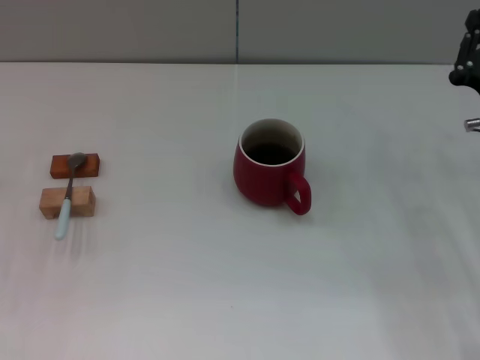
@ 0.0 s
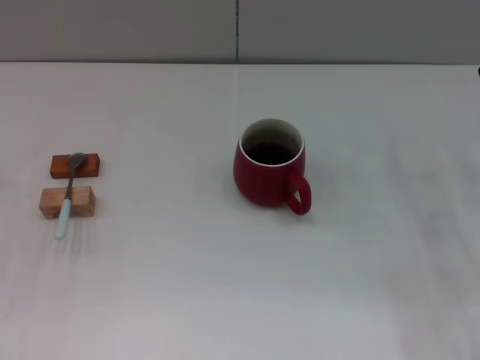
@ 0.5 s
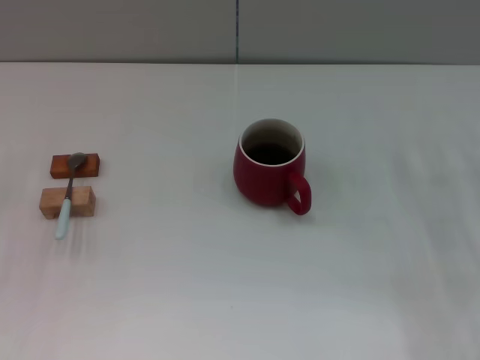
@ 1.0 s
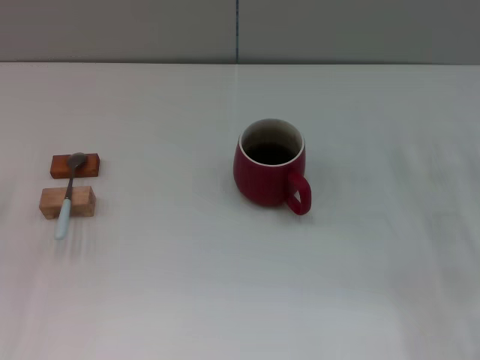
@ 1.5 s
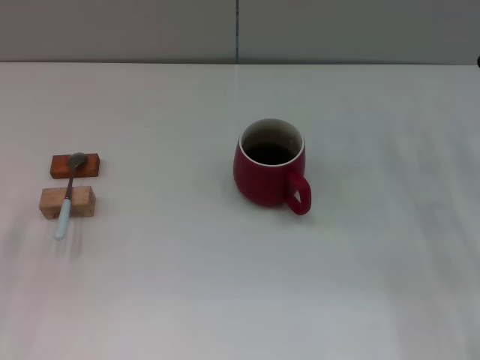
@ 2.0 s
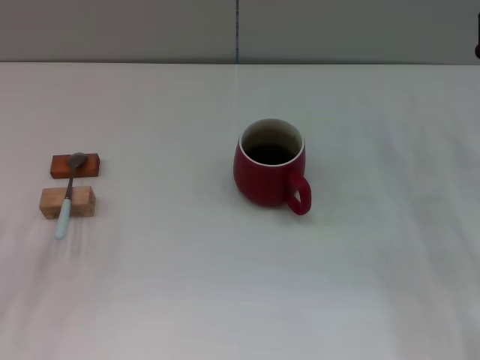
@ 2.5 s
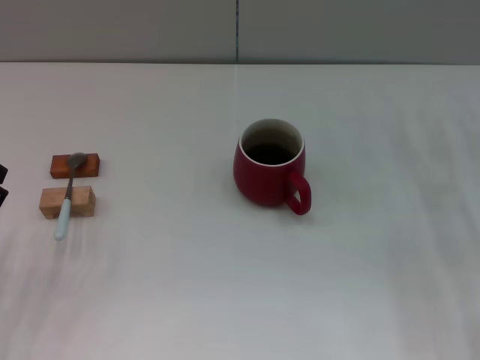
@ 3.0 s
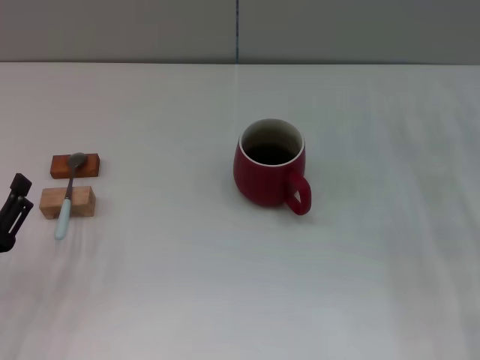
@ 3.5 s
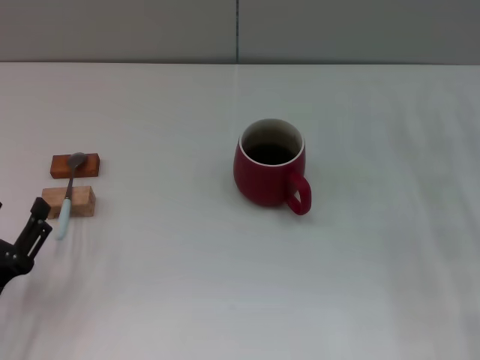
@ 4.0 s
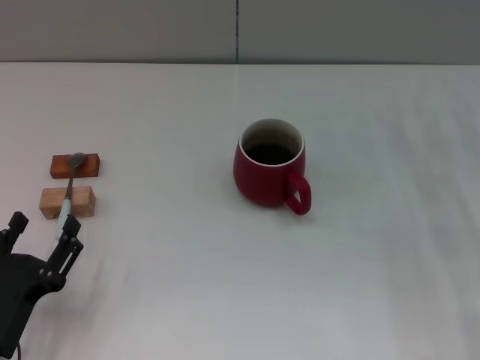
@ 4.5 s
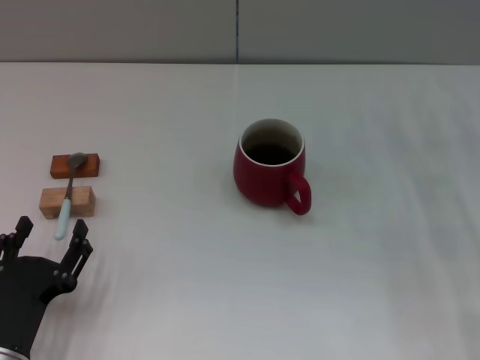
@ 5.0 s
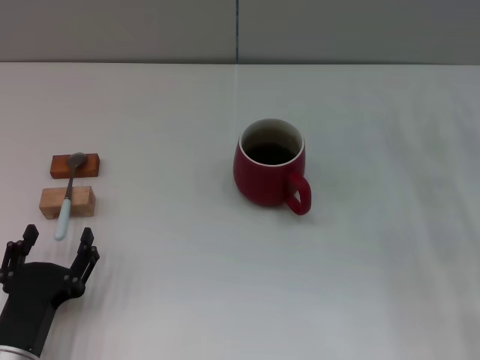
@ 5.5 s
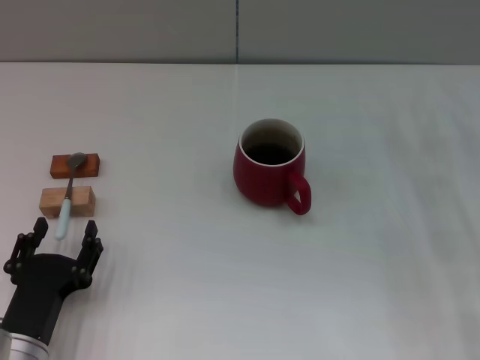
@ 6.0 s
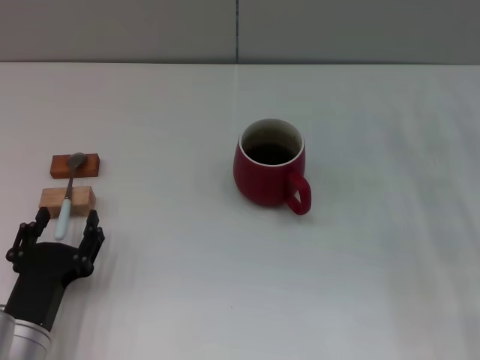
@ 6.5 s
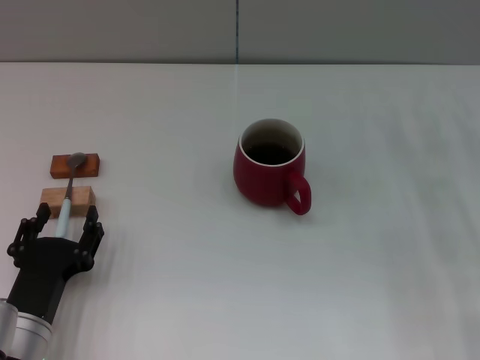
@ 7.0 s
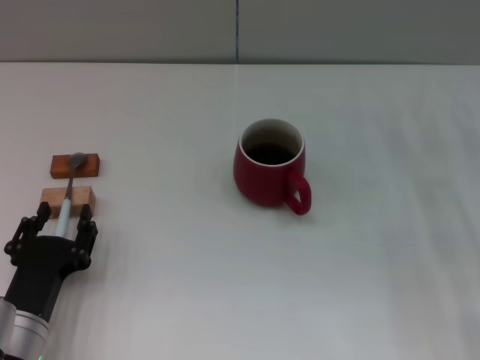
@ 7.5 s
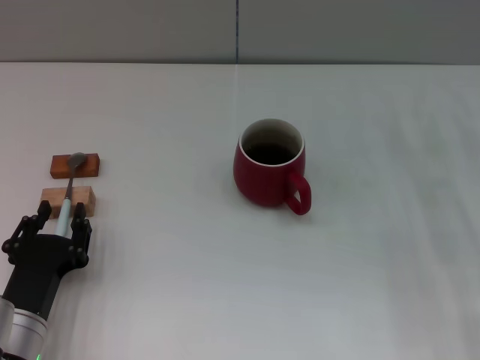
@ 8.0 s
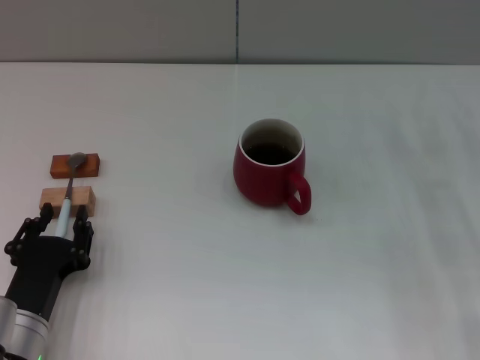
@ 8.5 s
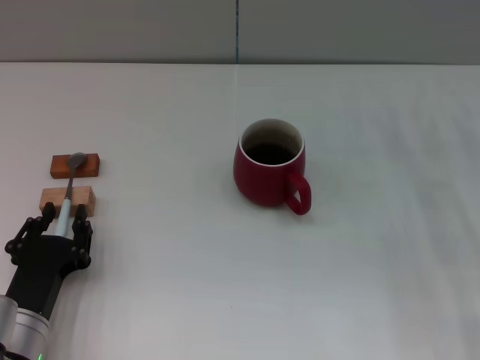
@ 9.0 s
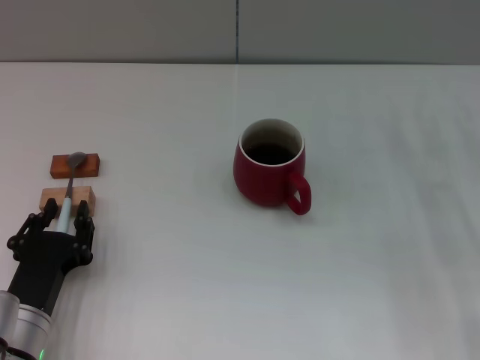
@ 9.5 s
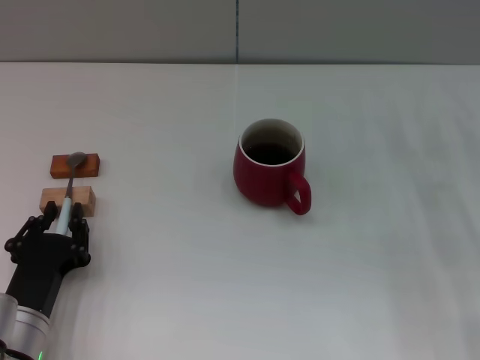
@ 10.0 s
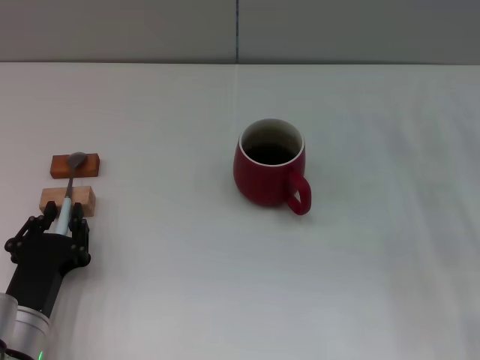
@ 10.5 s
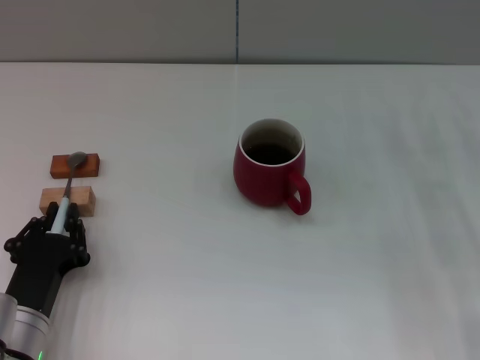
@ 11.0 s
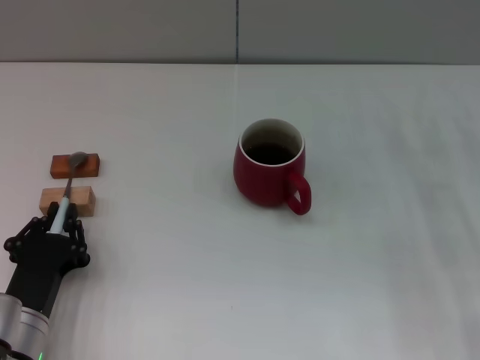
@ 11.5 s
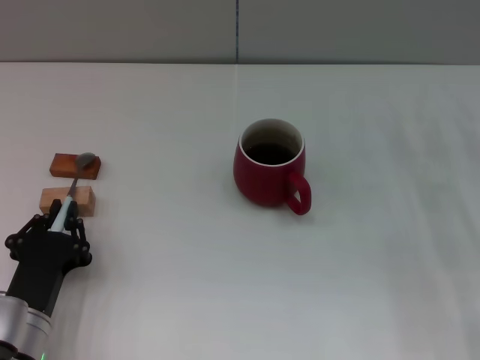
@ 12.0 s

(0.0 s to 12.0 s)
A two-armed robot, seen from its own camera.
Task of the whole recording: Move the red cup to the center, lift the blue spoon, stir it three times in the cup, and put the spoon into the cup.
0.0 s - 2.0 s: The right gripper opens.
2.0 s - 4.0 s: The left gripper goes some 10 cm to the right and backward.
4.0 s - 6.0 s: The left gripper is displaced to the right by approximately 5 cm.
6.0 s - 8.0 s: The grippers make only small movements.
8.0 s - 12.0 s: The two grippers keep their place.

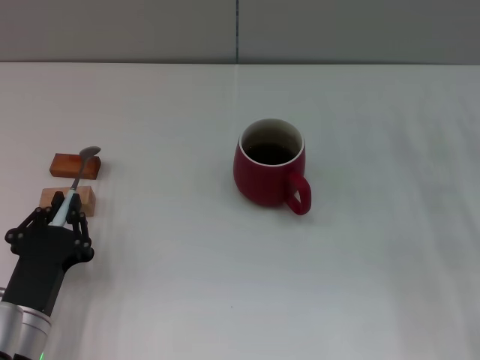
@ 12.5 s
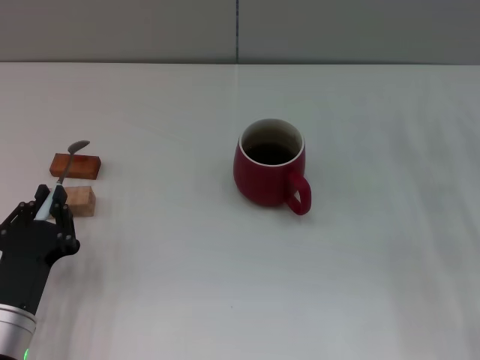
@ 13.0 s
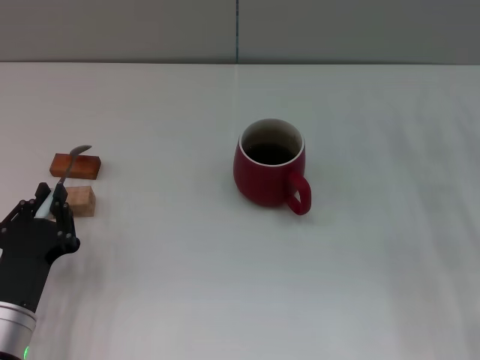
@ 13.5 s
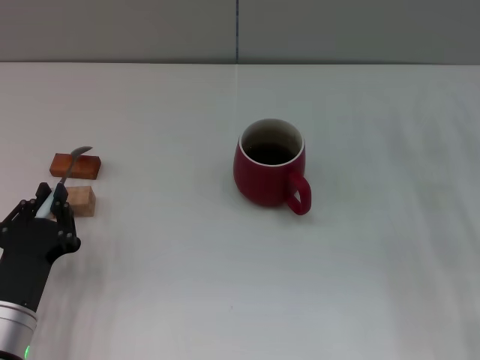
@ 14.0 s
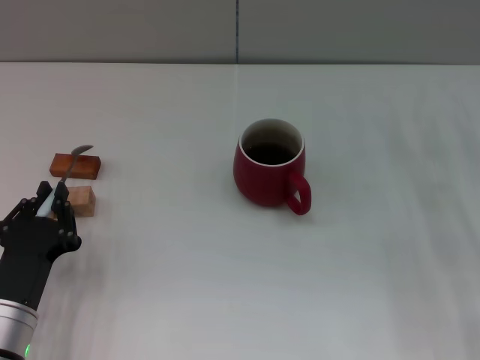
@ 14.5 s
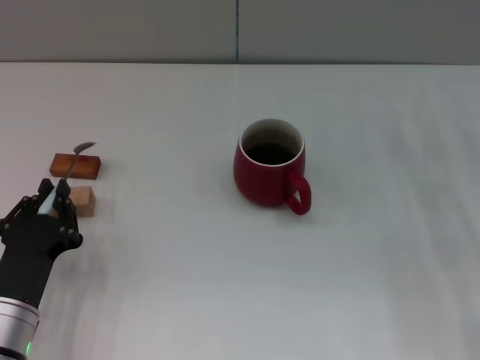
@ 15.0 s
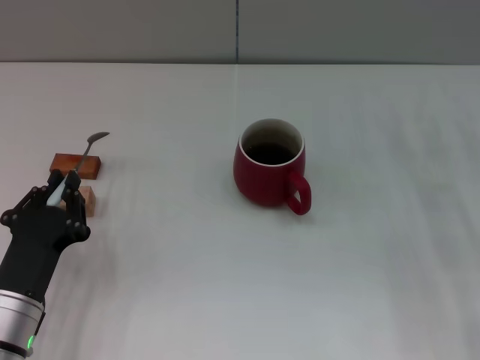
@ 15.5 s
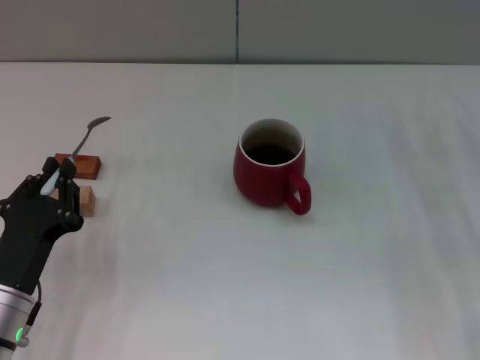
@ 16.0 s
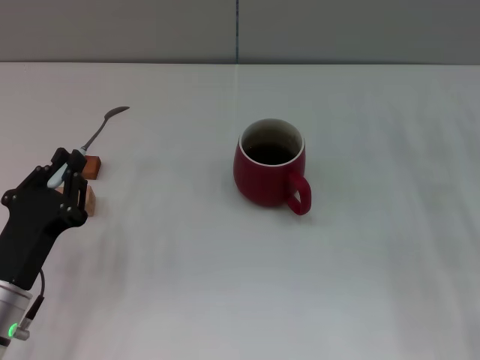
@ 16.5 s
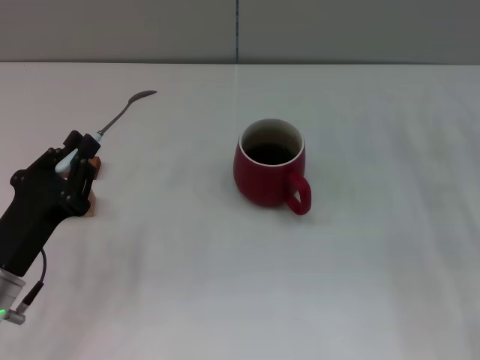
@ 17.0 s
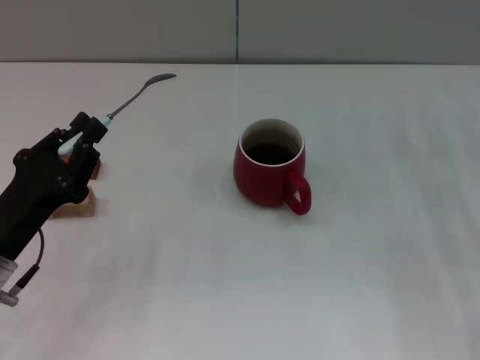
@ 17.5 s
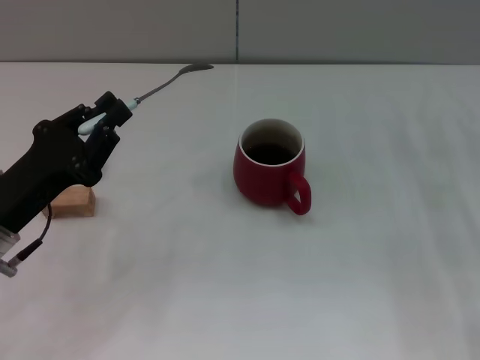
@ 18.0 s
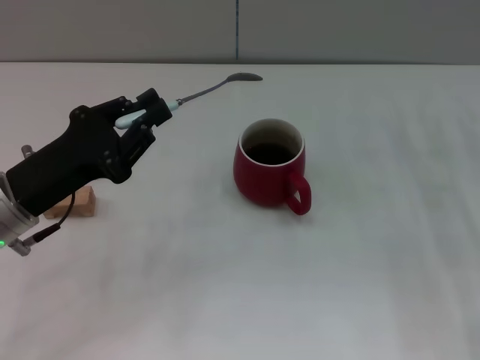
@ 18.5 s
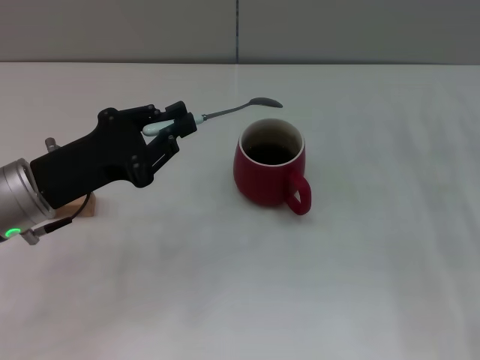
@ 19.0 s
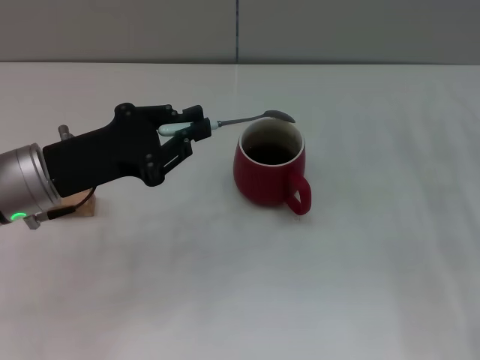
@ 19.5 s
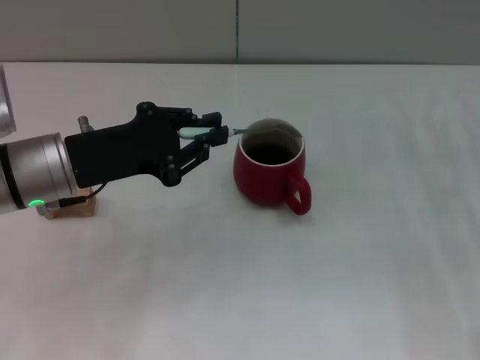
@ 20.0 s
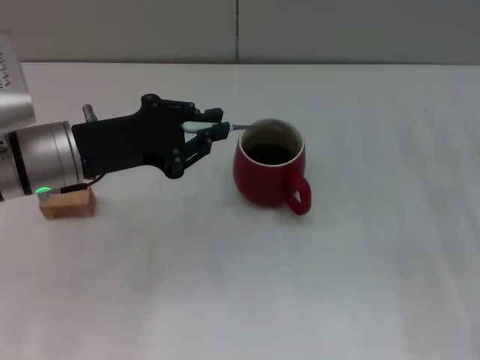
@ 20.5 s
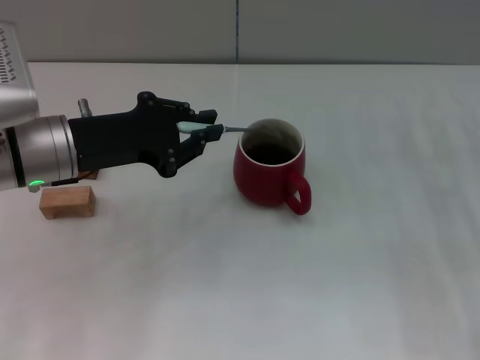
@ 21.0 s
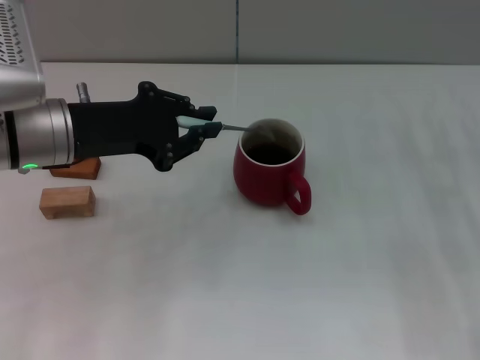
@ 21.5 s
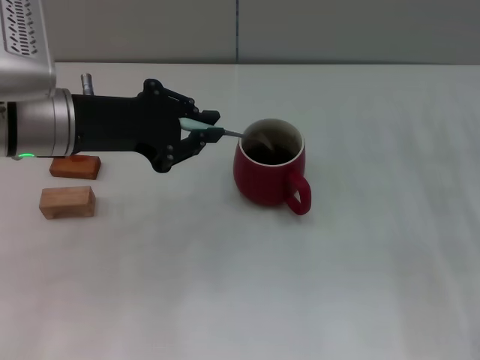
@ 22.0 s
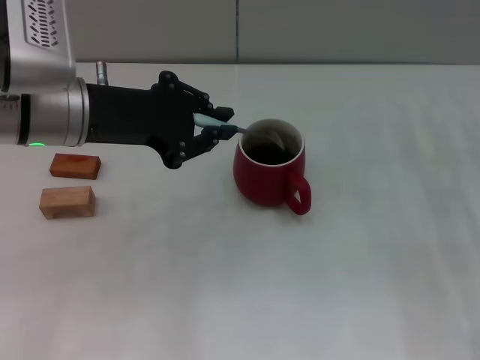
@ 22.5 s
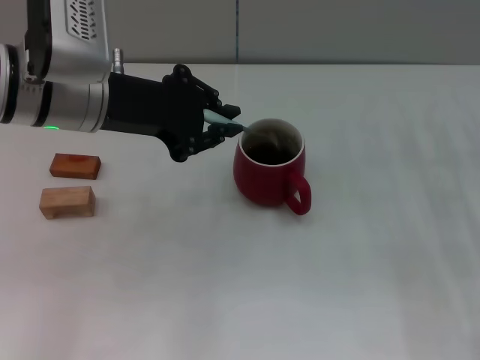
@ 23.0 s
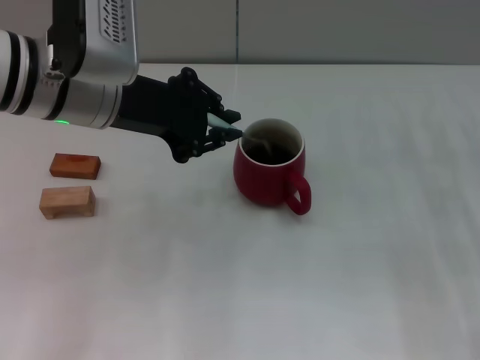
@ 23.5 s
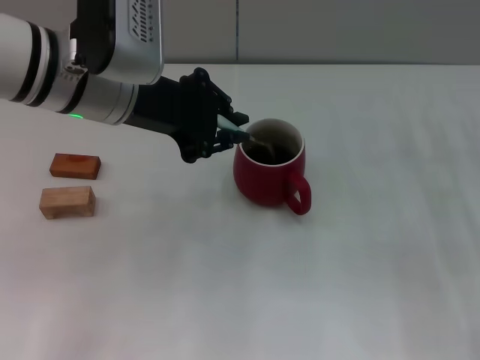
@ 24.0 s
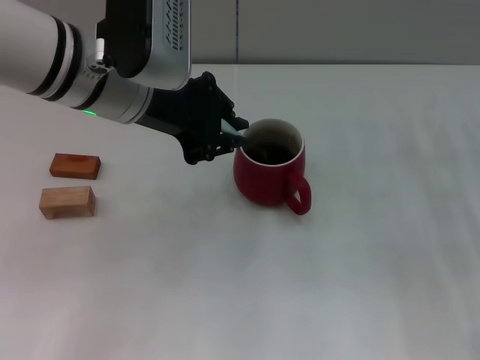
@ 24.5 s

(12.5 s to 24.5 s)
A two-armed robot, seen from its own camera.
Task of the whole recording: Move the red cup to the center, lift the blue spoon, stir it three times in the cup, and put the spoon into the cup.
12.5 s - 14.5 s: There are only small adjustments of the grippers.
16.5 s - 18.5 s: The left gripper heads forward and upward, covering roughly 10 cm.
18.5 s - 20.5 s: The left gripper moves forward, about 5 cm.
20.5 s - 22.5 s: The left gripper shifts approximately 5 cm upward.
22.5 s - 24.5 s: The left gripper shifts about 5 cm to the right.

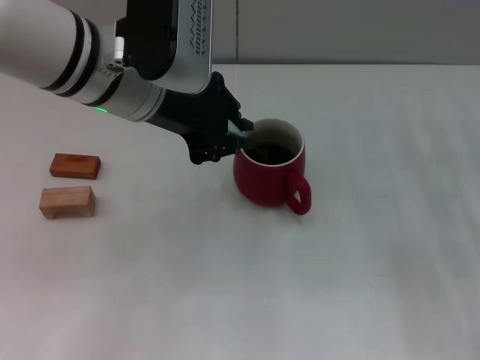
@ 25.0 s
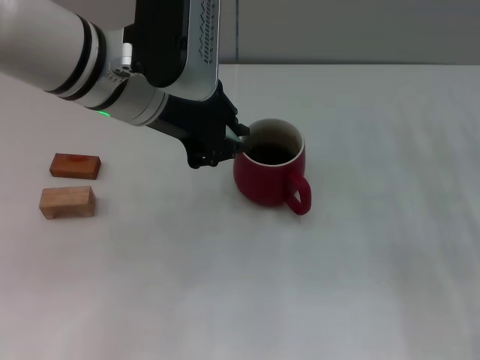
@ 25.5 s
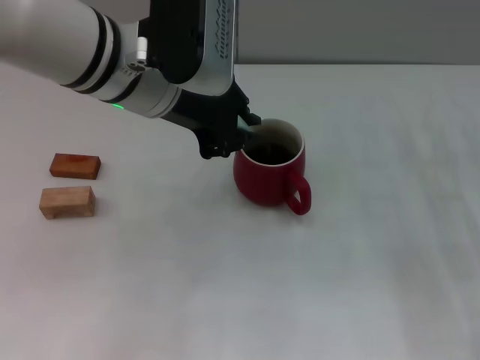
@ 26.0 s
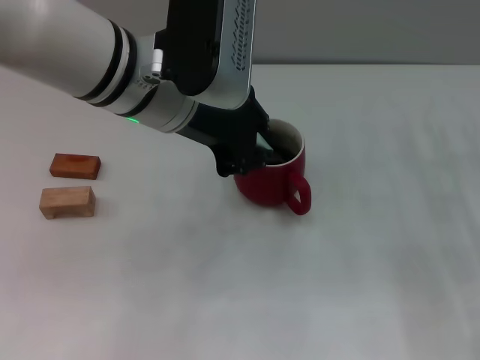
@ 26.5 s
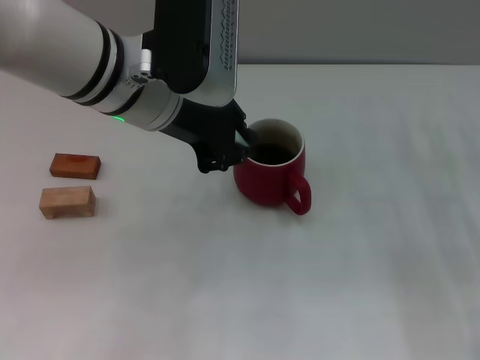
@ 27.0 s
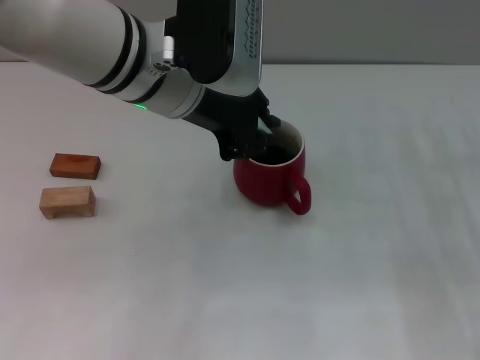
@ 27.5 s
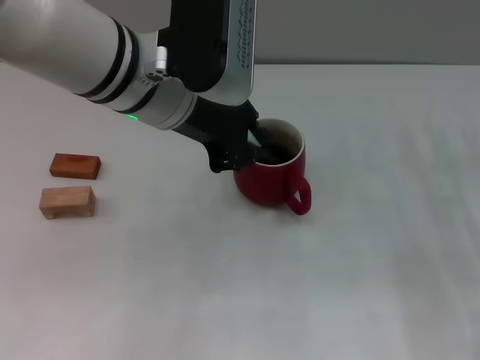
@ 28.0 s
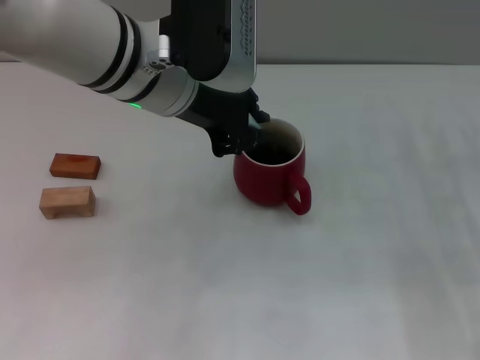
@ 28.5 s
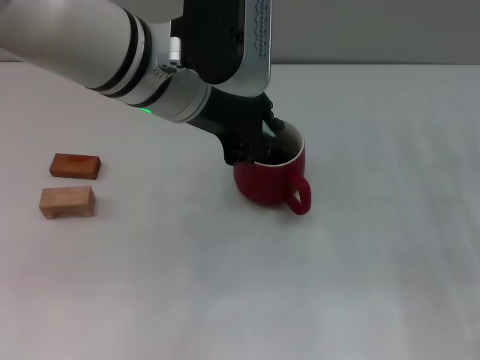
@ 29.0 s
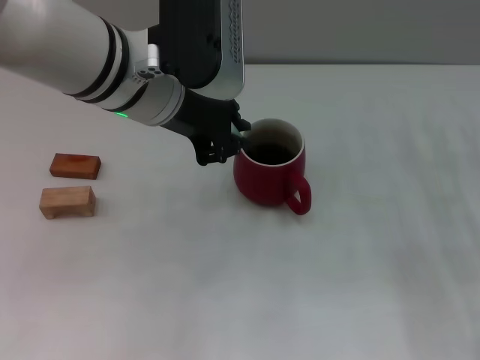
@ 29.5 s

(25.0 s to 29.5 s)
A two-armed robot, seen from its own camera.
Task of the whole recording: Move the red cup to the center, lift the blue spoon, stir it three times in the cup, and put the spoon into the cup.
25.0 s - 29.5 s: The grippers make only small movements.
